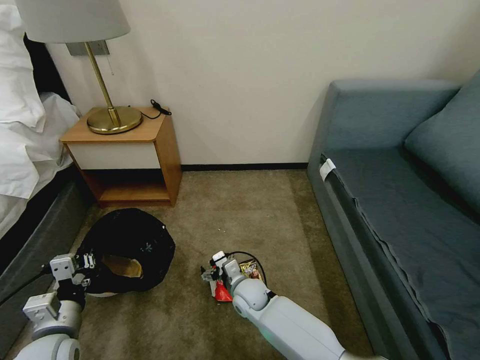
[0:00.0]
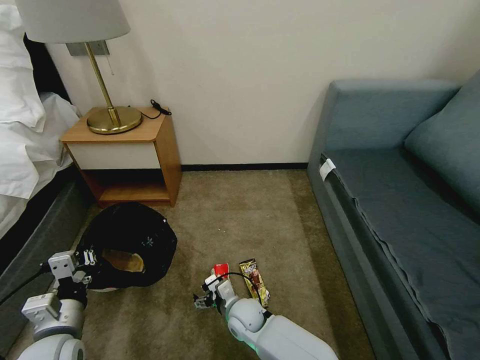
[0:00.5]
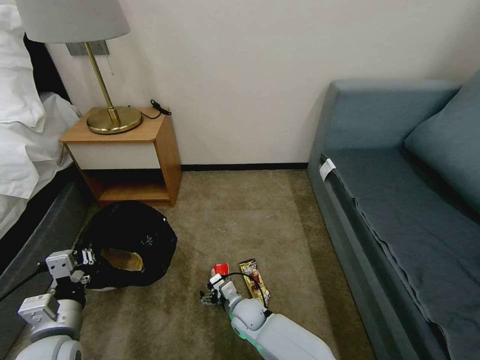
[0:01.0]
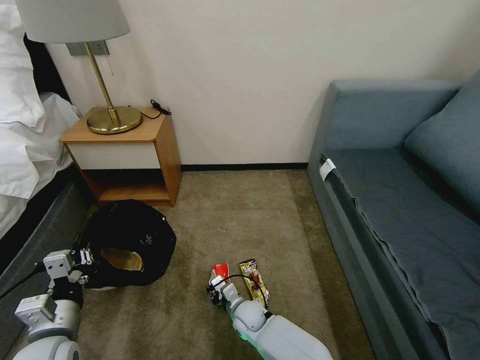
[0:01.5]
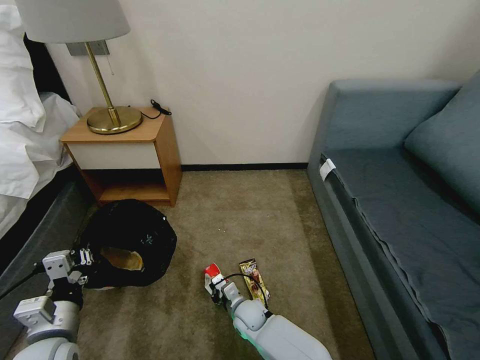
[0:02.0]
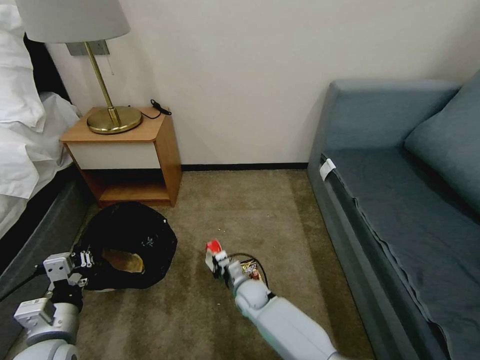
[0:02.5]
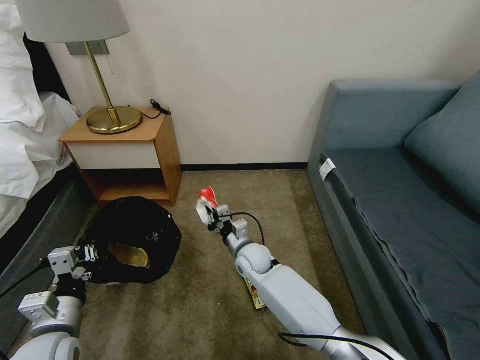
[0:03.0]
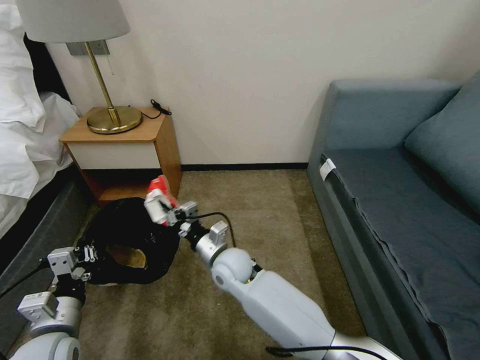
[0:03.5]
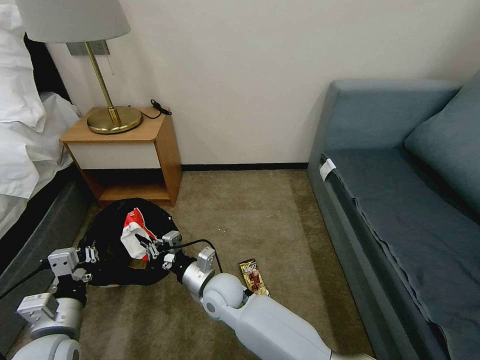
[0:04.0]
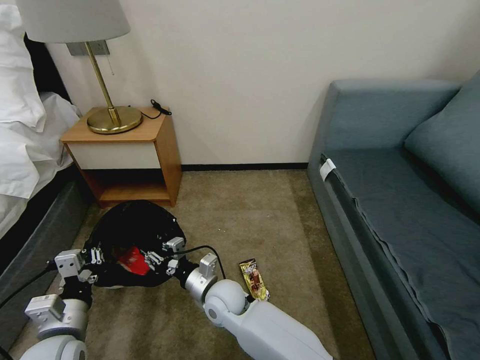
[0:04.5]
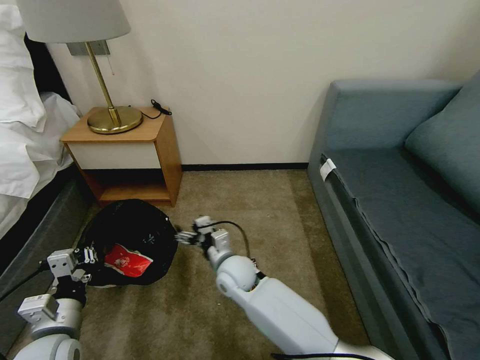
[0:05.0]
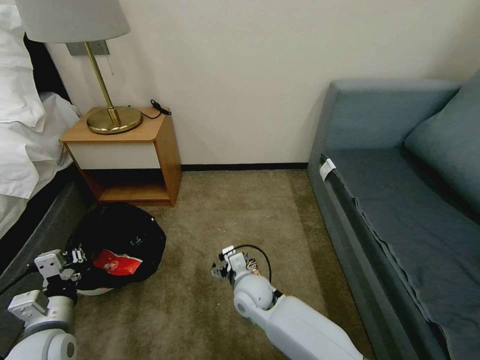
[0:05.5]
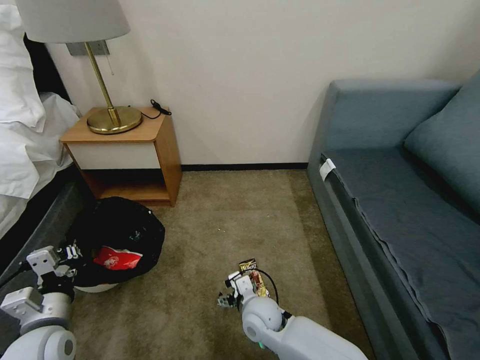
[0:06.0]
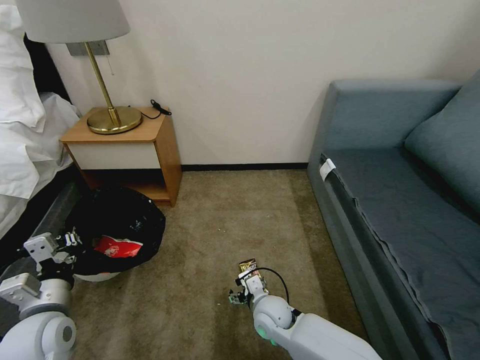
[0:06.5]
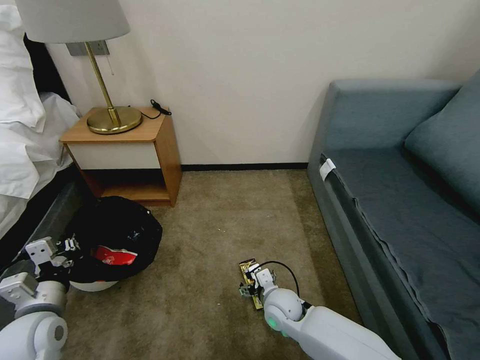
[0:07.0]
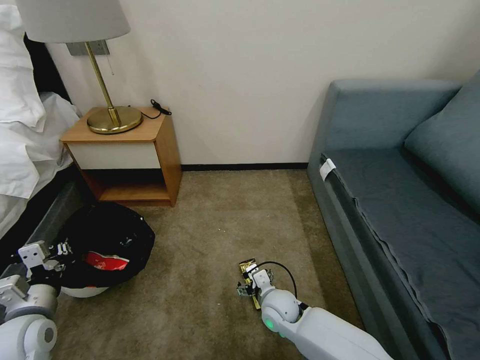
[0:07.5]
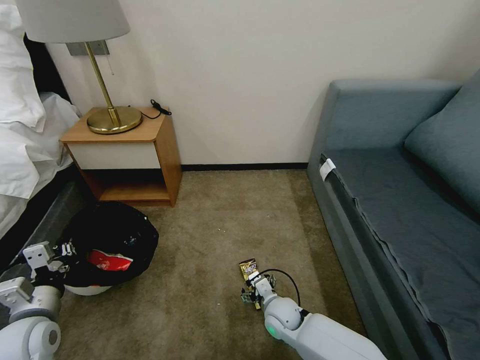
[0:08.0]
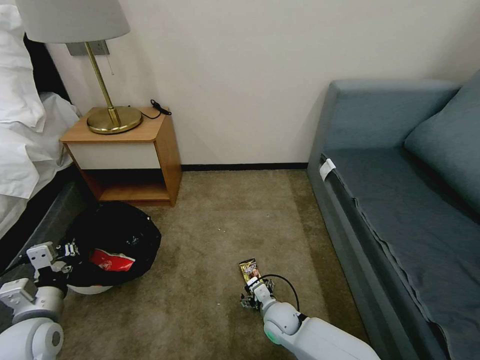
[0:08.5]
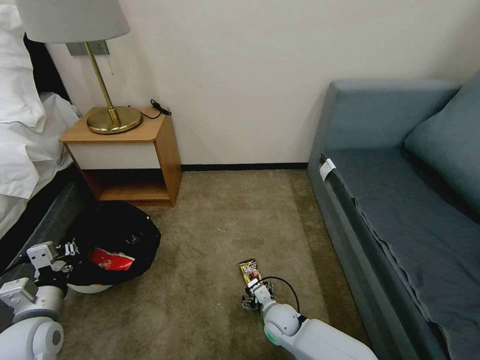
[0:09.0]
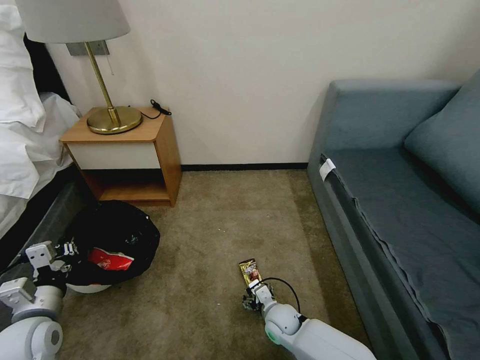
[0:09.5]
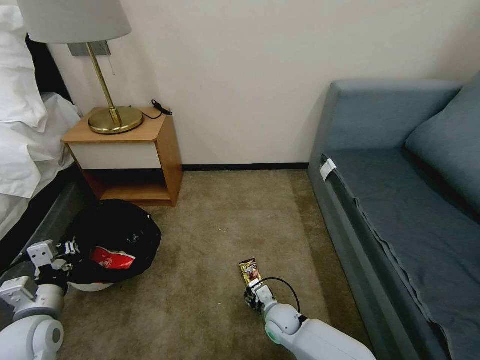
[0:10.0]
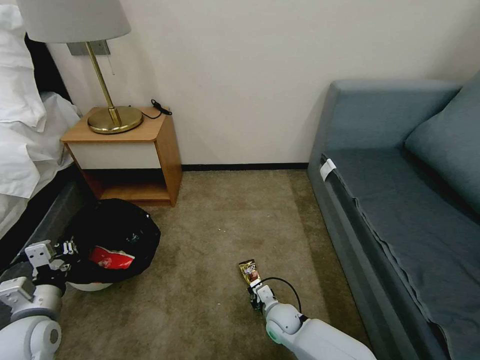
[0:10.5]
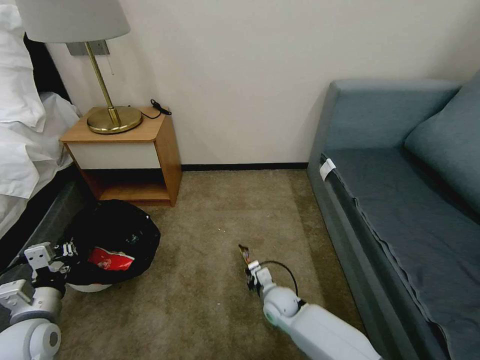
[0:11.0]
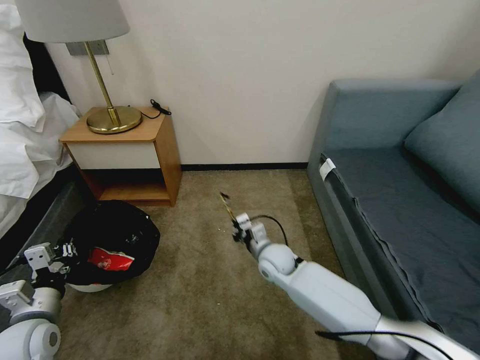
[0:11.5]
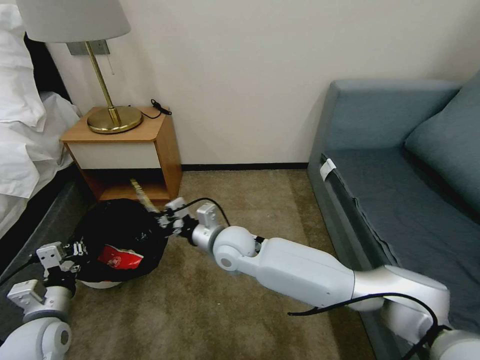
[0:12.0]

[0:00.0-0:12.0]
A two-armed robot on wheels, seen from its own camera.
Task of the whole recording: Pick up the trash bin, then pick up the garbage on the floor and place it into the trash bin.
0:00.0 to 0:02.0: The right gripper shifts approximately 5 cm downward, and closes its fingers.
0:02.0 to 0:04.0: The right gripper is displaced upward and to the left by roughly 20 cm.
0:04.0 to 0:06.0: The right gripper shifts roughly 10 cm to the right and downward, and opens.
0:06.0 to 0:08.0: The right gripper moves to the right and downward, approximately 10 cm.
0:08.0 to 0:10.0: The right gripper closes.
0:10.0 to 0:12.0: The right gripper goes about 30 cm upward and to the left, and closes its fingers.

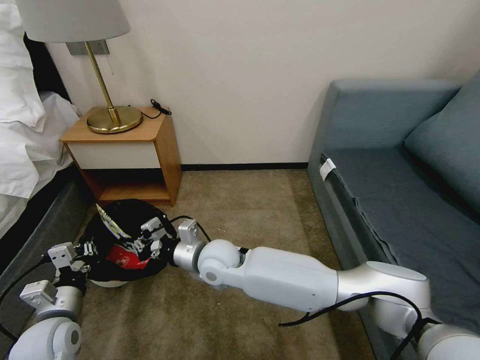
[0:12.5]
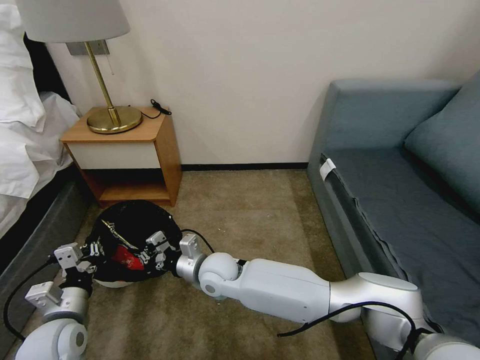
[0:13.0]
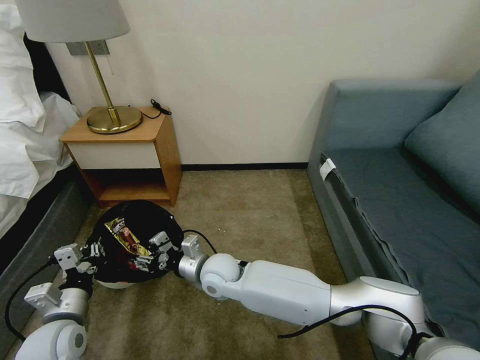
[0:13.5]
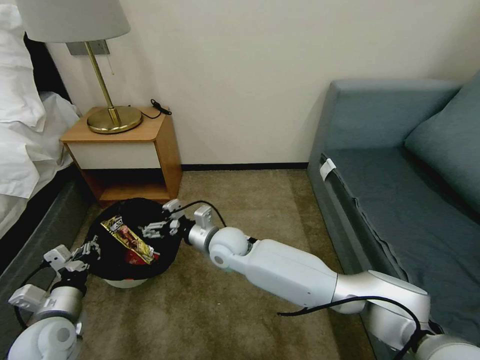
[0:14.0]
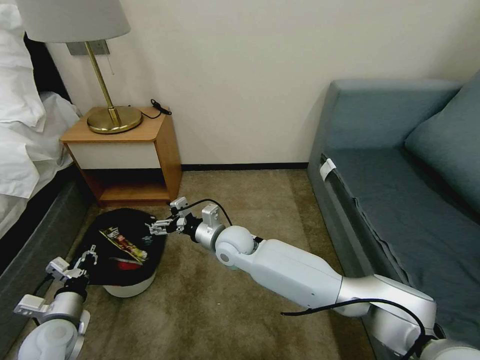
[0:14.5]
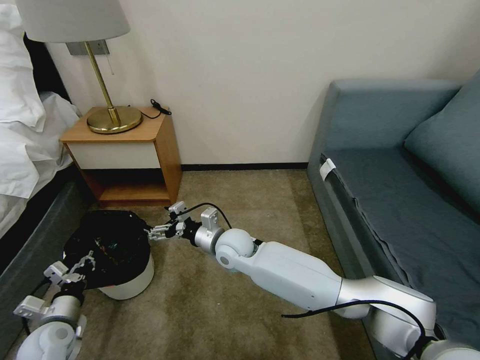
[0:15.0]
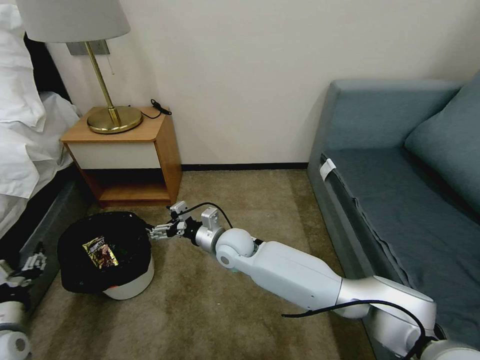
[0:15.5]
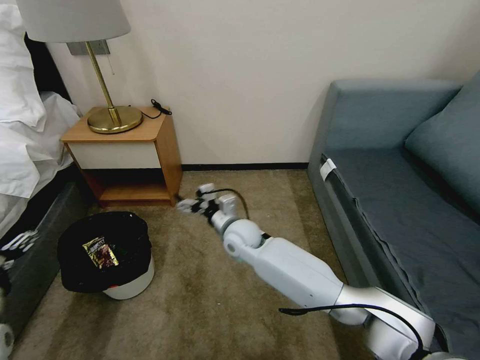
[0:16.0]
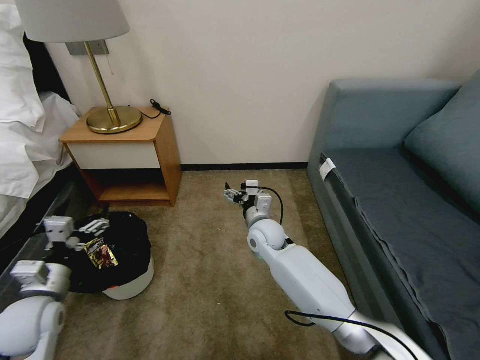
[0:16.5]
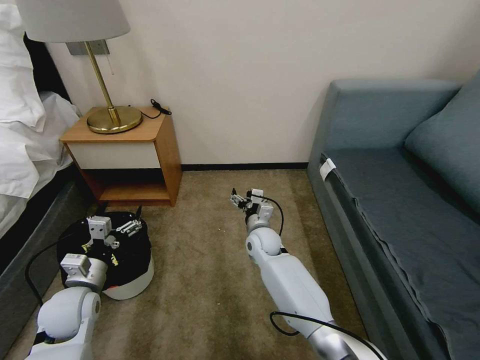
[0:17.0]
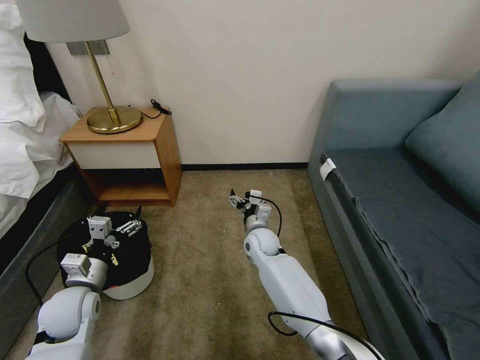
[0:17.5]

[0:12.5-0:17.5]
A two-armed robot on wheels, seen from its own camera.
Task of the whole recording: Pick up the trash bin, then pick up the garbage on the floor and place it into the trash bin.
0:12.5 to 0:15.0: The right gripper changes place by roughly 5 cm, and opens up. Meanwhile the left gripper is displaced downward and to the left by some 10 cm.
0:15.0 to 0:17.5: The right gripper is displaced to the right, downward and forward by some 10 cm, while the left gripper moves upward and to the right, approximately 10 cm, and opens.

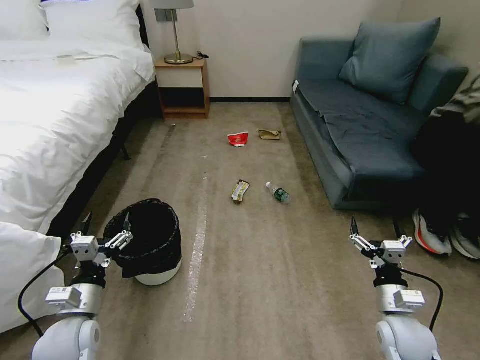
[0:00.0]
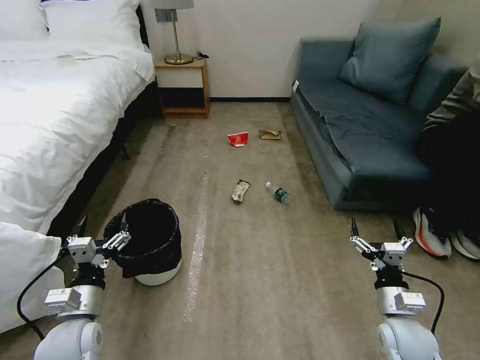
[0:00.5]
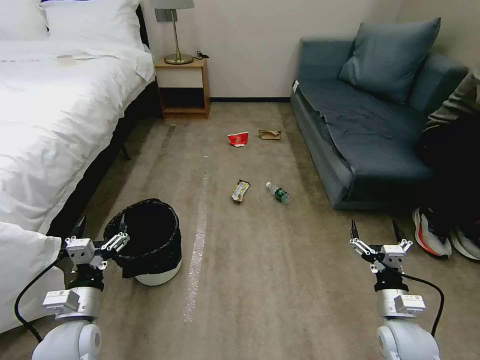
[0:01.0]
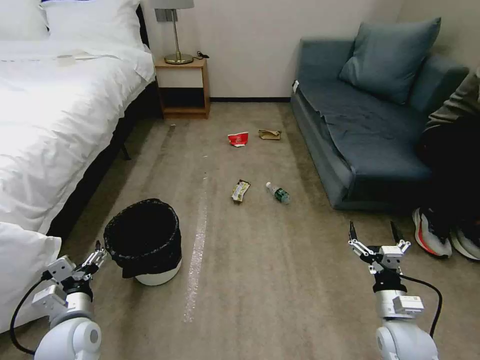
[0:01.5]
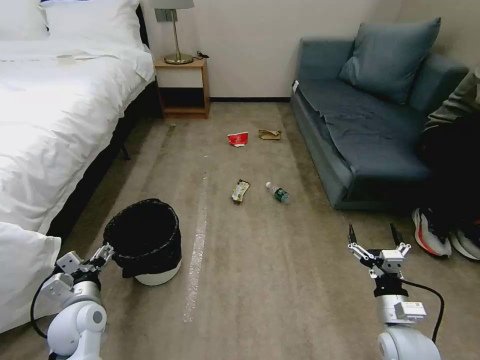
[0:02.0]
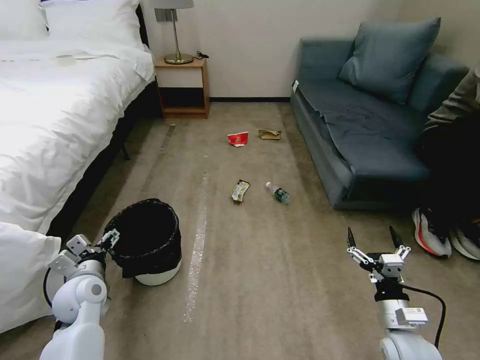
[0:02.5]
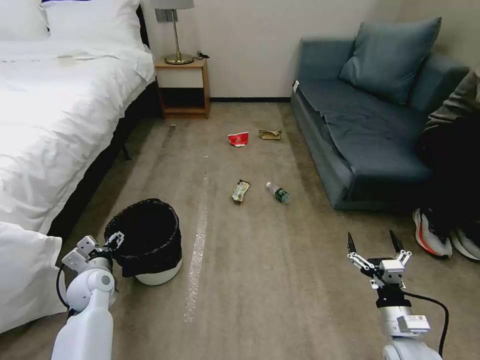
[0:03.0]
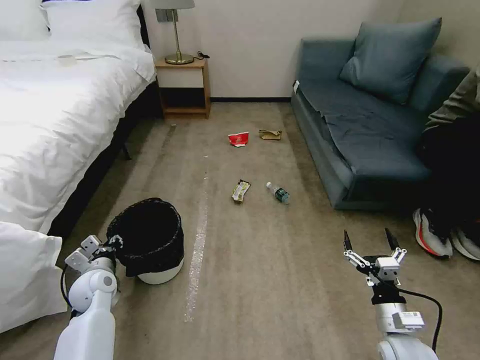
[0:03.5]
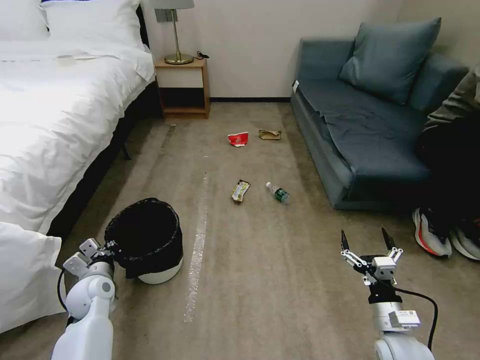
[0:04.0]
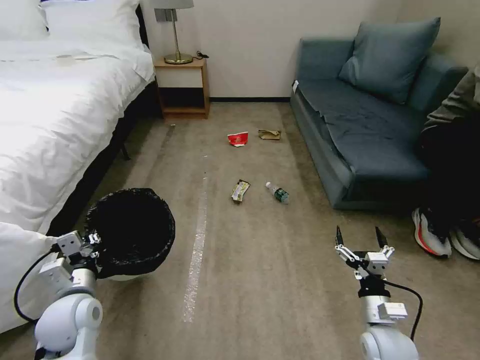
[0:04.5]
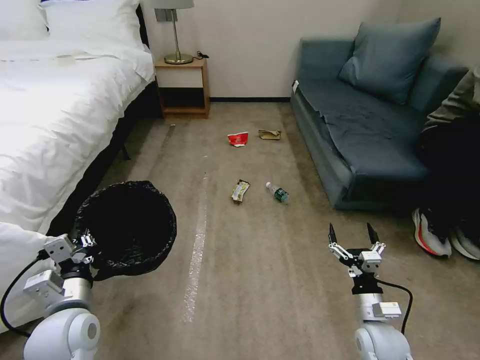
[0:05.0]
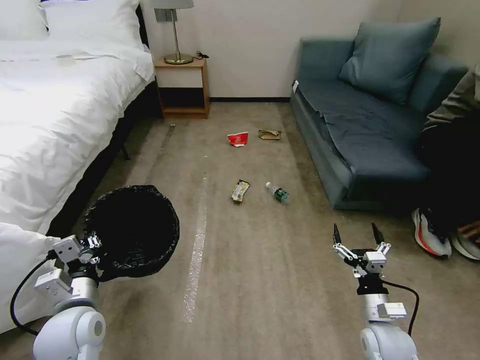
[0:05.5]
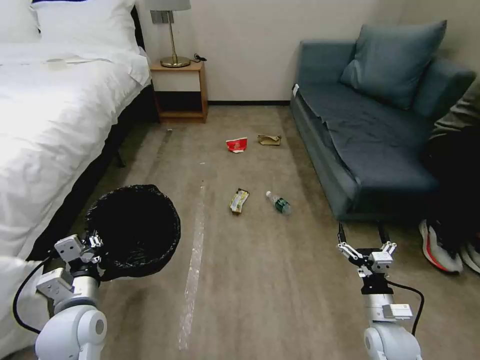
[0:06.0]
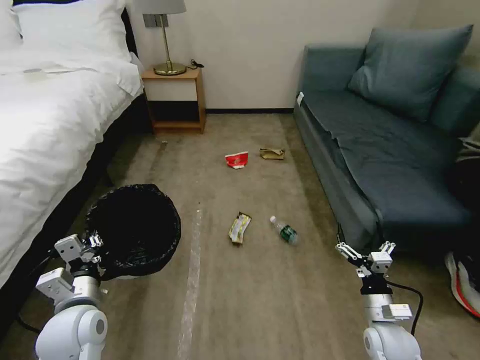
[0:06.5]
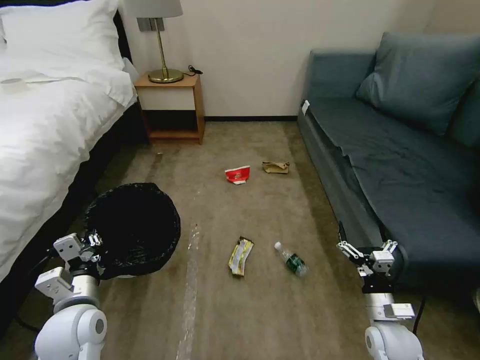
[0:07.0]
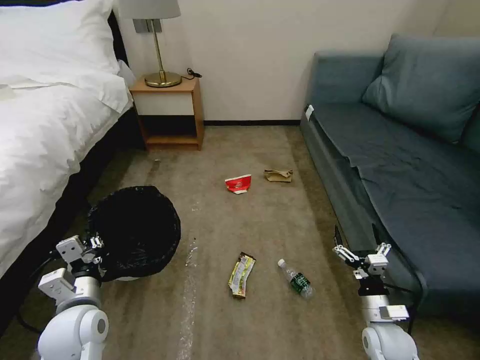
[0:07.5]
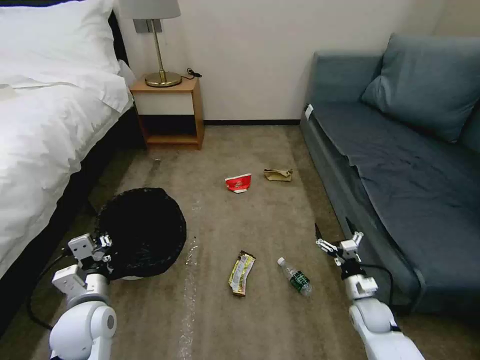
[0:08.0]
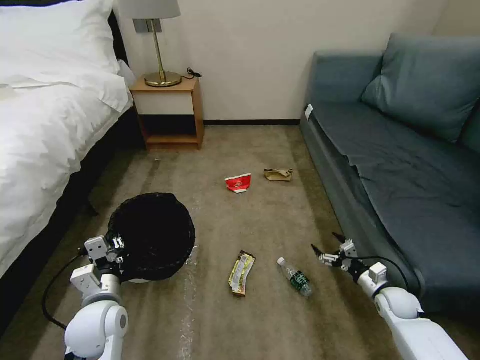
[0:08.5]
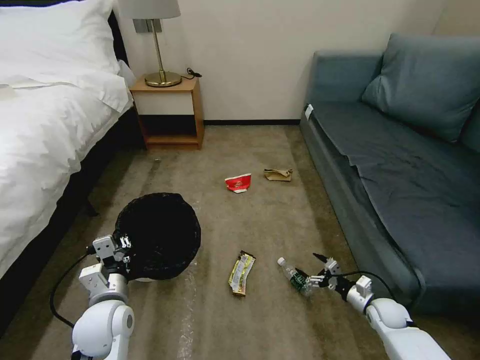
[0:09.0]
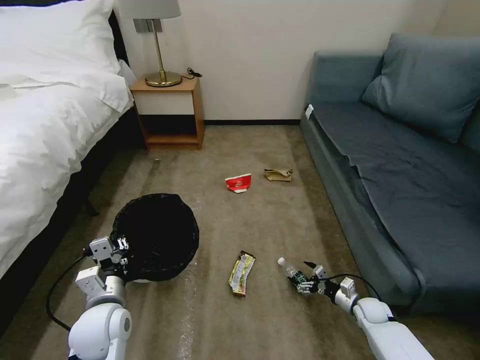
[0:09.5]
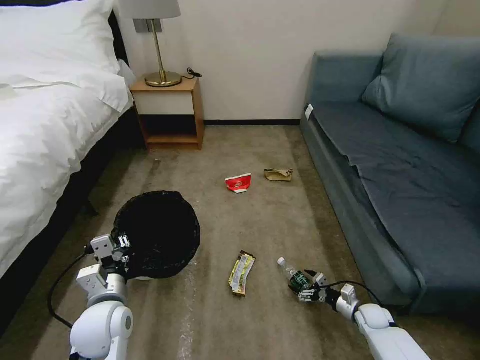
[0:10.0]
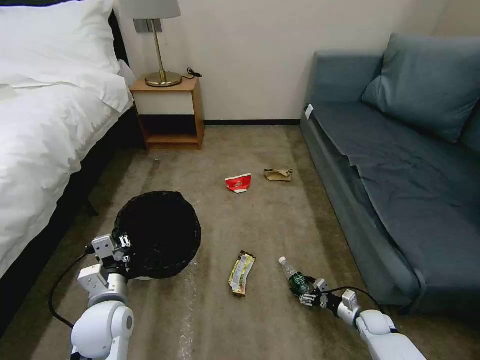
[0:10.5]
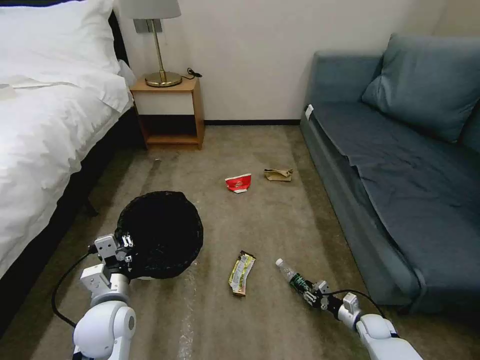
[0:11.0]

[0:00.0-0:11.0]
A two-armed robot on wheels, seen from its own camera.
Task of the whole recording: Pick up the trash bin, then pick up the garbage on the floor and place it into the trash bin.
0:02.0 to 0:03.5: The left gripper travels forward by roughly 10 cm, and closes its fingers.
0:03.5 to 0:05.5: The left gripper goes approximately 15 cm backward, upward and to the right.
0:07.5 to 0:09.0: The right gripper shifts about 15 cm downward, forward and to the right.
0:09.0 to 0:11.0: The right gripper is displaced downward by roughly 5 cm, and closes up.
